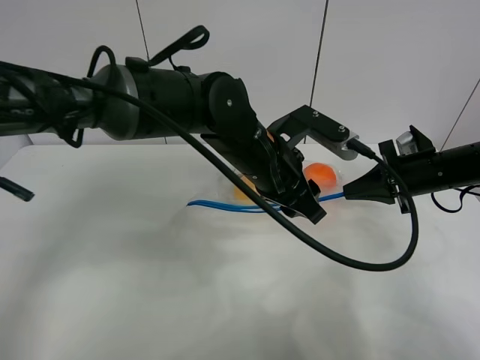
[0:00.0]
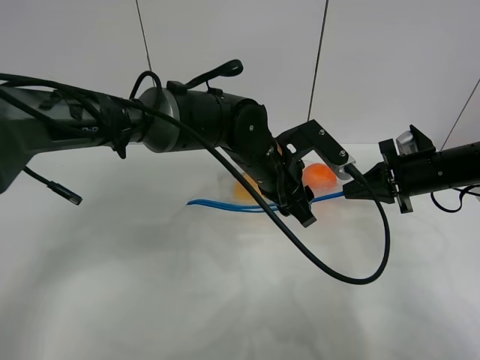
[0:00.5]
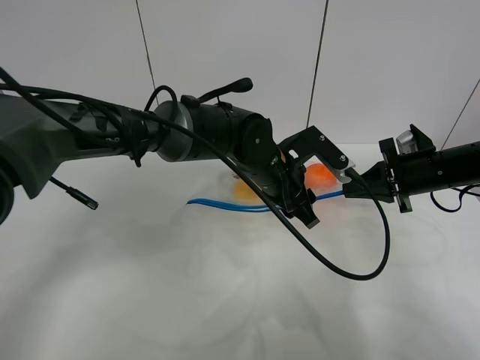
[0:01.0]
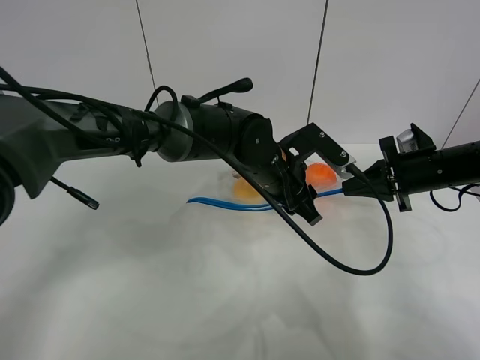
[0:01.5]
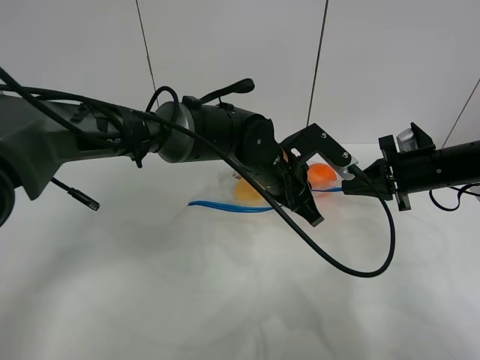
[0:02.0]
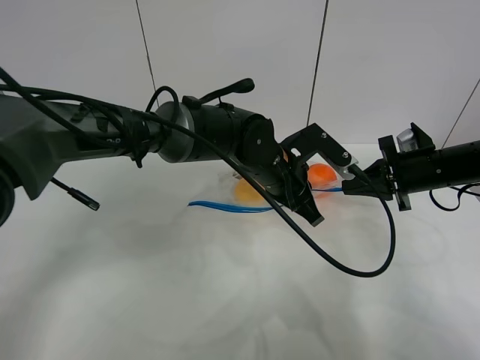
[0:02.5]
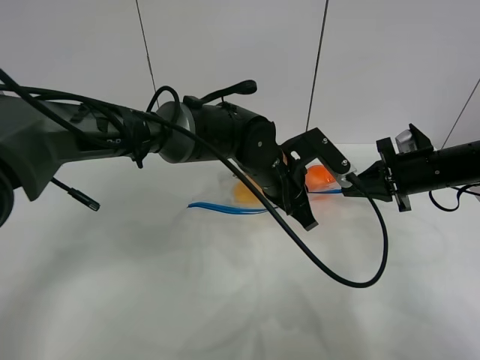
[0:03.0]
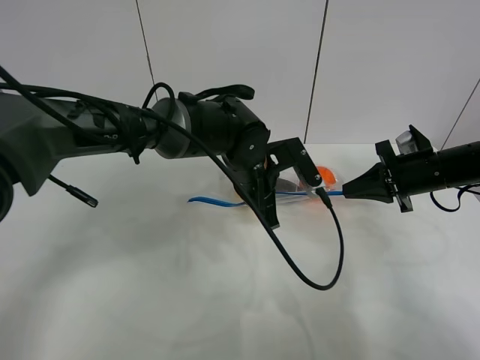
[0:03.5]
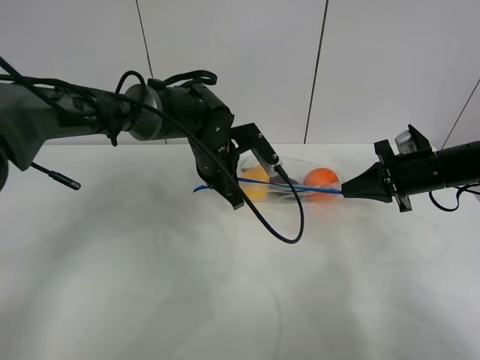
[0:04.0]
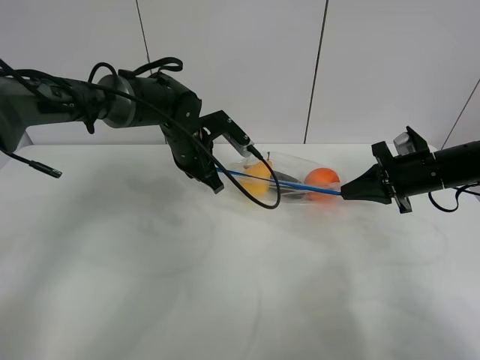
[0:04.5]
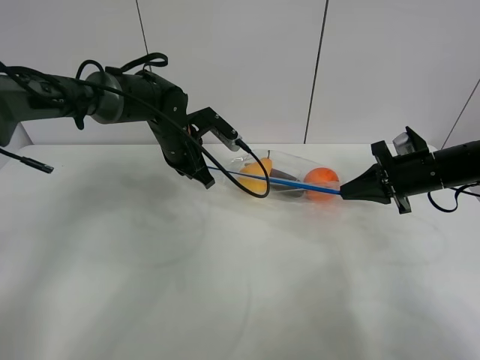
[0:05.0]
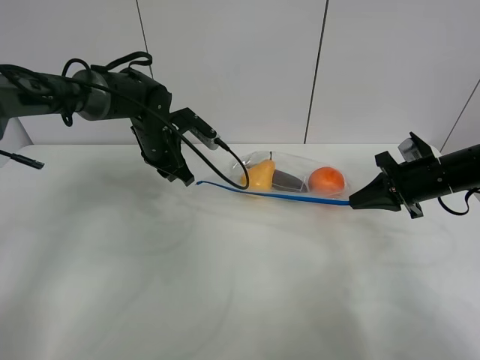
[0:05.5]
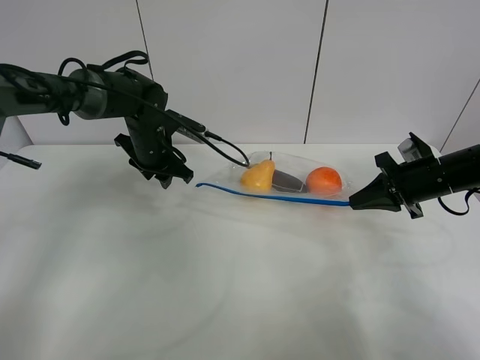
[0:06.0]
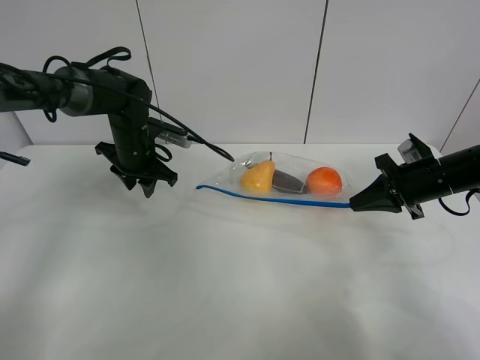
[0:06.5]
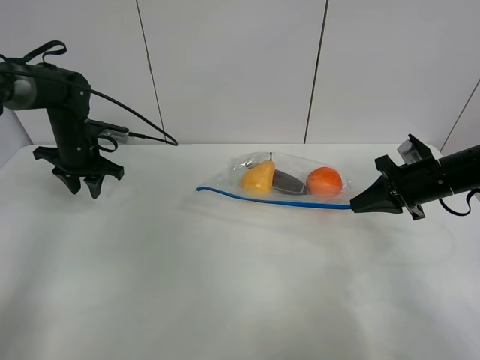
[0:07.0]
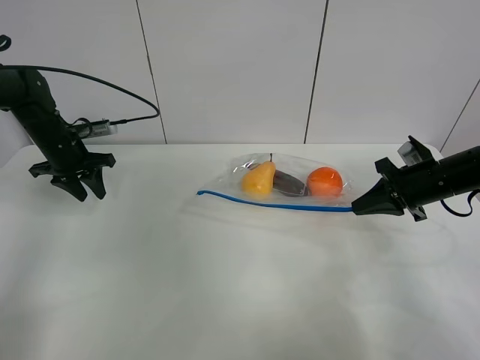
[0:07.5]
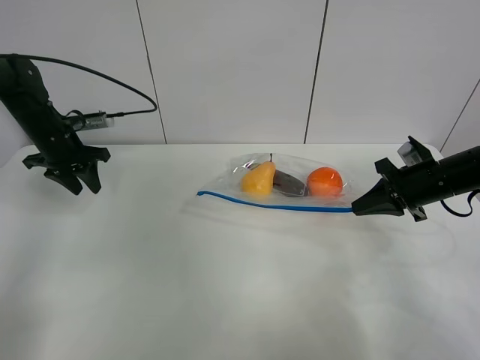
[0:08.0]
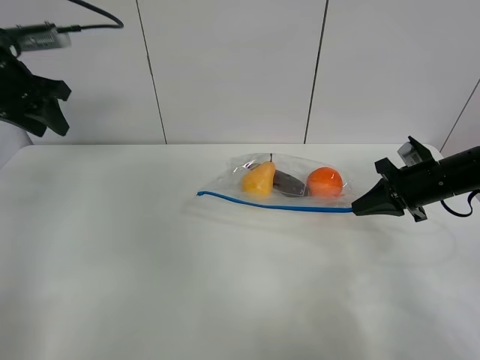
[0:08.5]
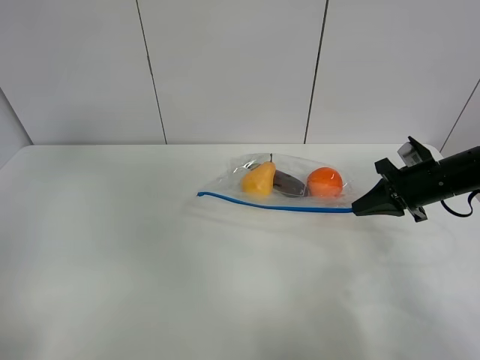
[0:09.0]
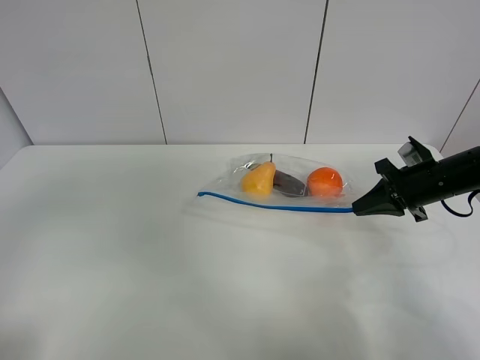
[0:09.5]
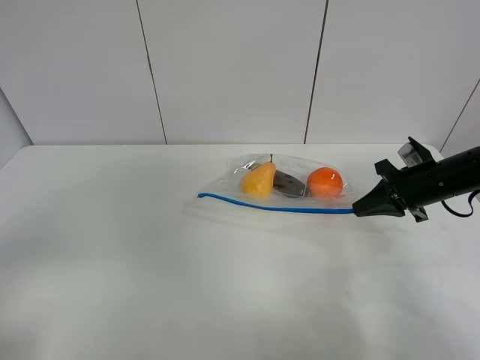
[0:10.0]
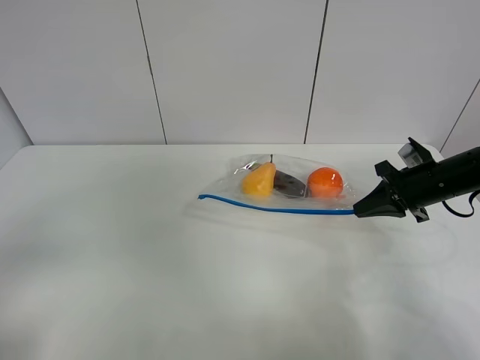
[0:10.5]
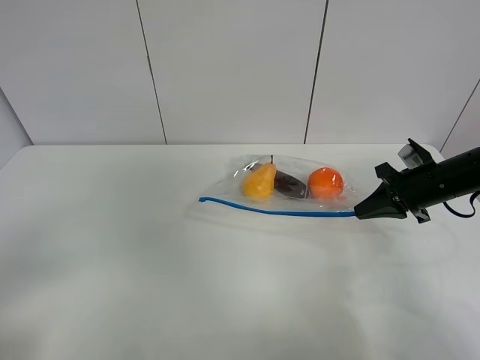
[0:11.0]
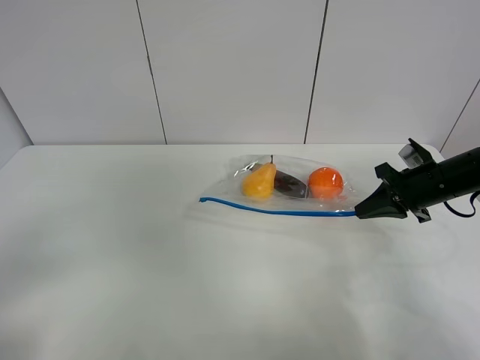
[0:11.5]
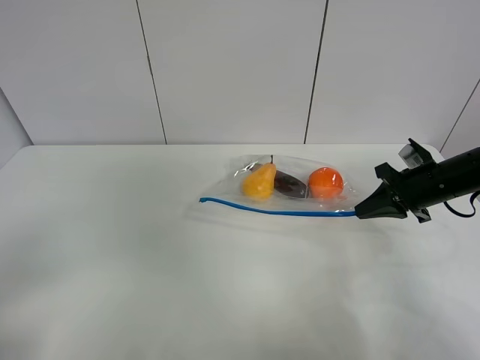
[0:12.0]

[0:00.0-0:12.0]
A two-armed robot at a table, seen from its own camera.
Step, 0:00.0 to 0:05.5: Pull the fruit bag with left gripper.
0:00.0 to 0:02.0: The left gripper moves roughly 5 cm, and closes.
0:02.0 to 0:04.0: The left gripper goes roughly 10 cm to the left.
0:04.0 to 0:06.0: The left gripper shifts roughly 10 cm to the left, and opens.
0:06.0 to 0:08.0: The left gripper goes some 20 cm to the left.
0:08.0 to 0:10.0: The left gripper is displaced backward by some 40 cm.
0:10.0 to 0:12.0: There are only small adjustments of the grippers.

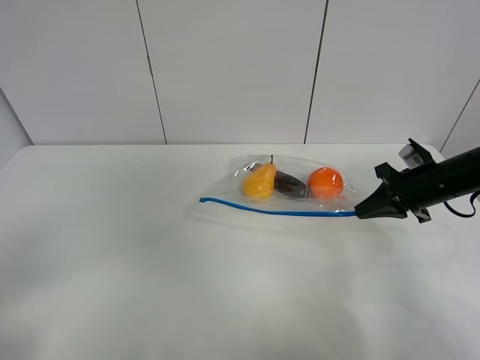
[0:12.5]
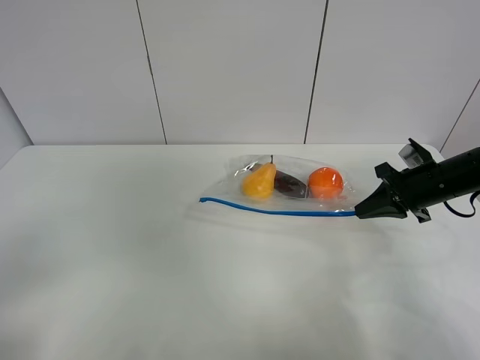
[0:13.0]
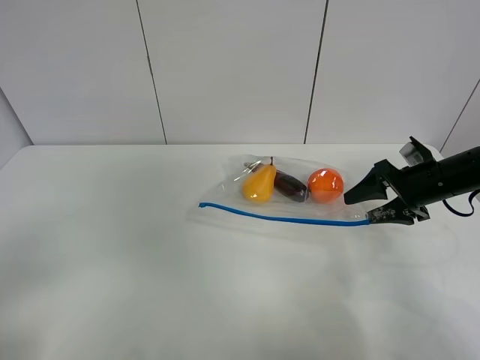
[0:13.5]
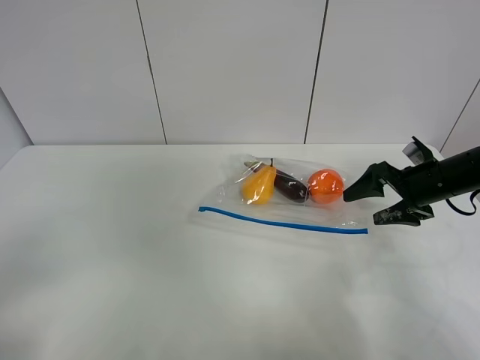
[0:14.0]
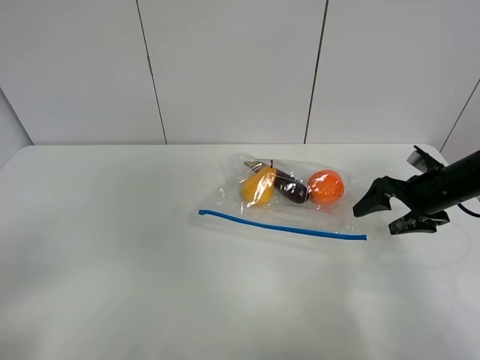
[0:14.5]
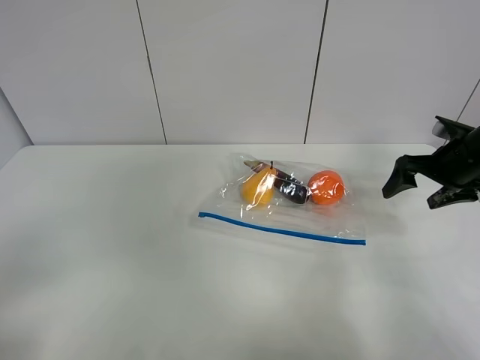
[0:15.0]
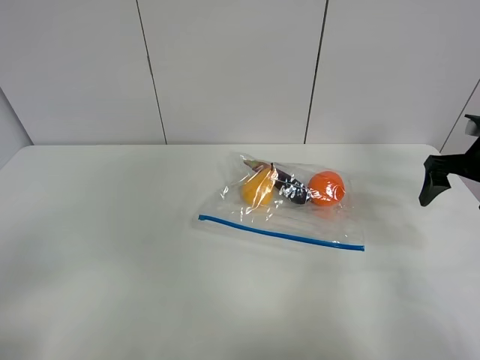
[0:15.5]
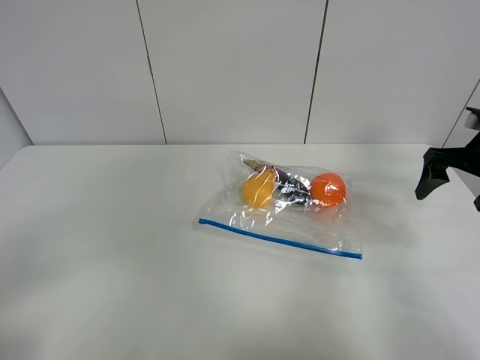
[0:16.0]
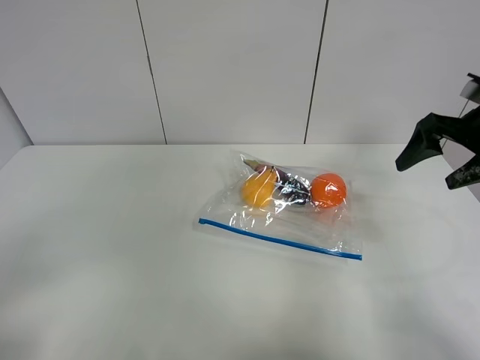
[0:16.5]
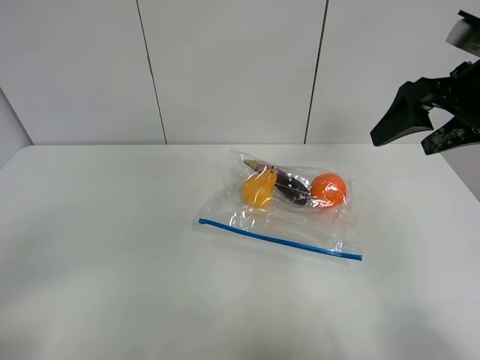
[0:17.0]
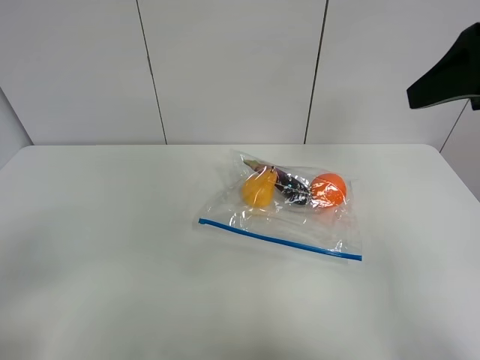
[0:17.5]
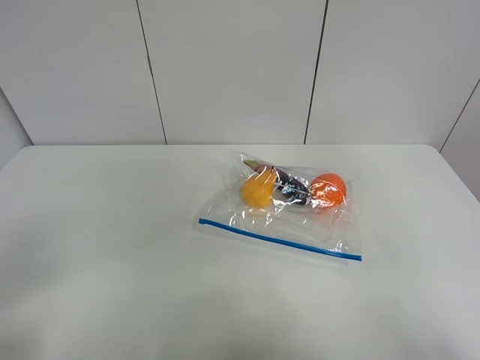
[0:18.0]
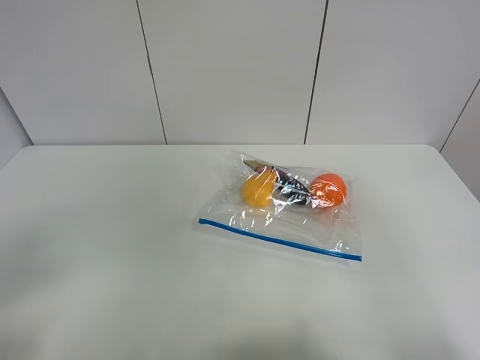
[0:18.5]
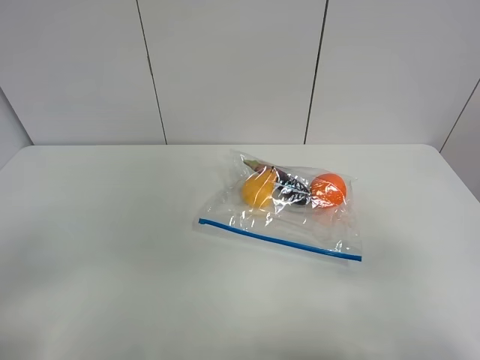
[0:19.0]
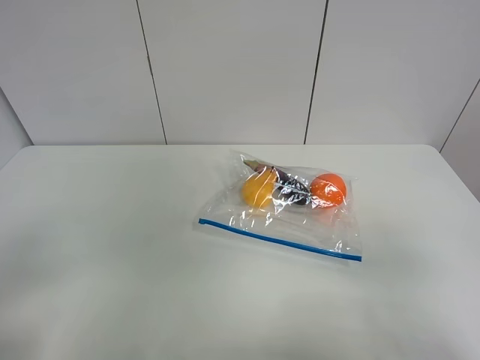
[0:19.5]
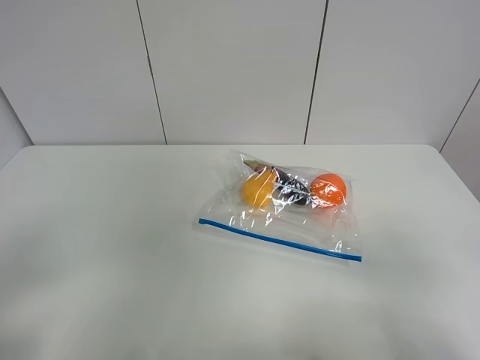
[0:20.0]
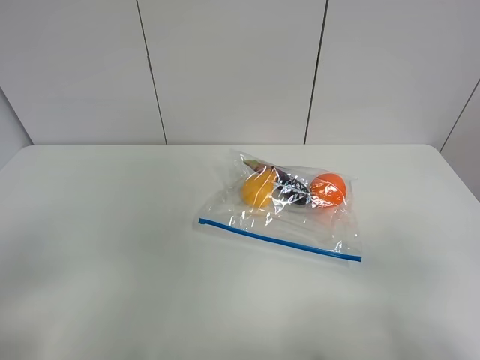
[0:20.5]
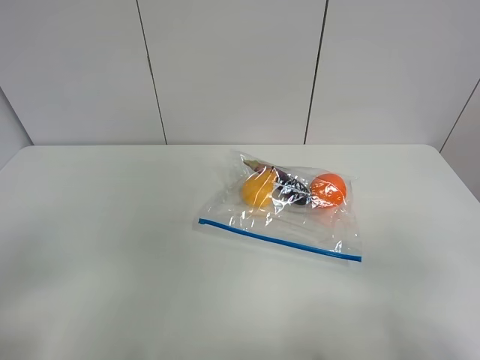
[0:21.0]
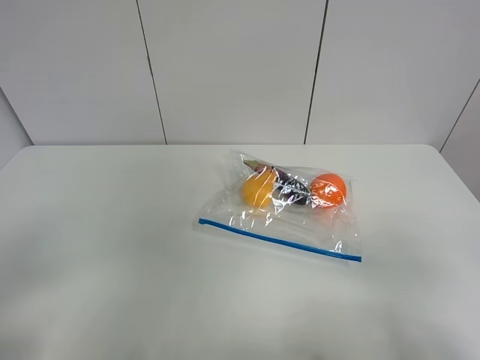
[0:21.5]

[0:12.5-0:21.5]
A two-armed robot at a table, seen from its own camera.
0:12.5 to 0:14.5: The right gripper opens up.
0:14.5 to 0:17.0: The right gripper travels upward by approximately 20 cm.
0:17.0 to 0:19.5: The right gripper shifts approximately 30 cm backward.

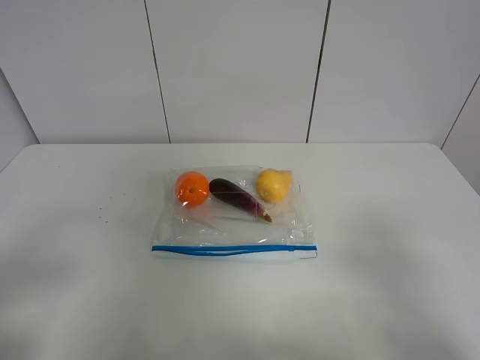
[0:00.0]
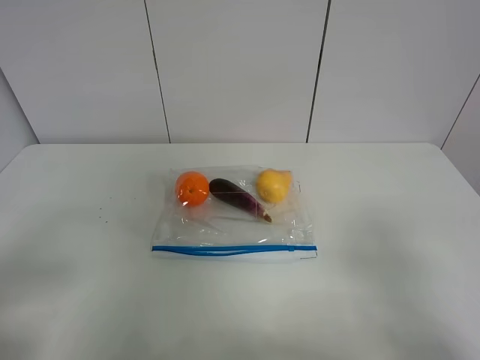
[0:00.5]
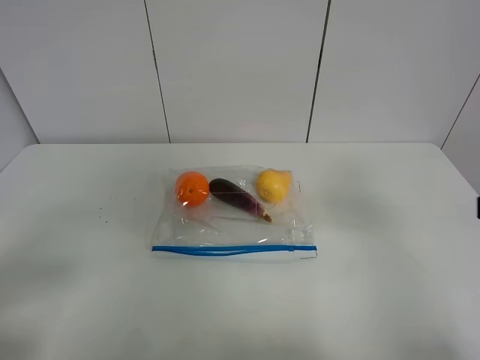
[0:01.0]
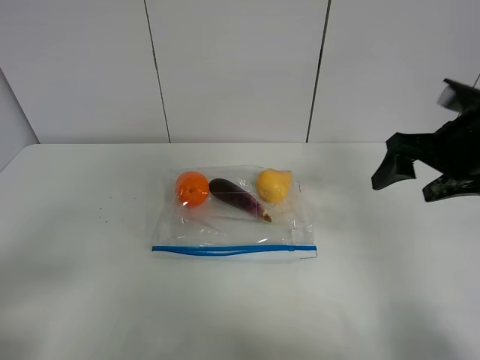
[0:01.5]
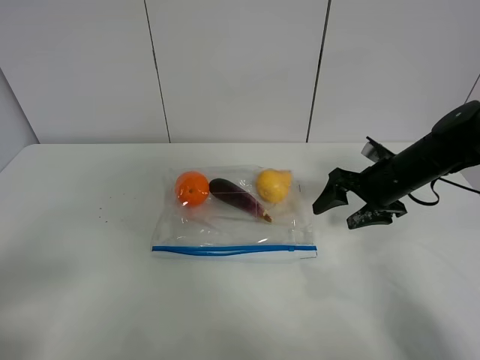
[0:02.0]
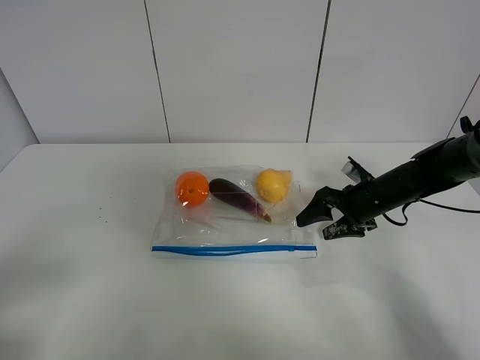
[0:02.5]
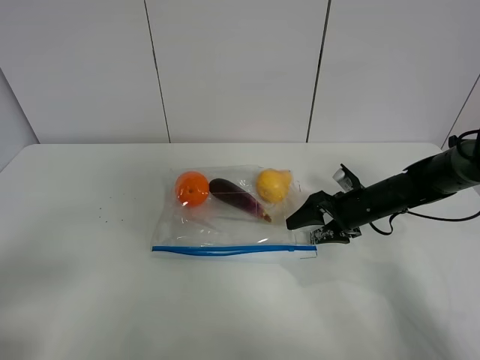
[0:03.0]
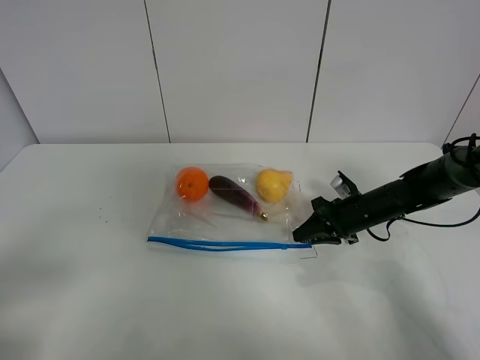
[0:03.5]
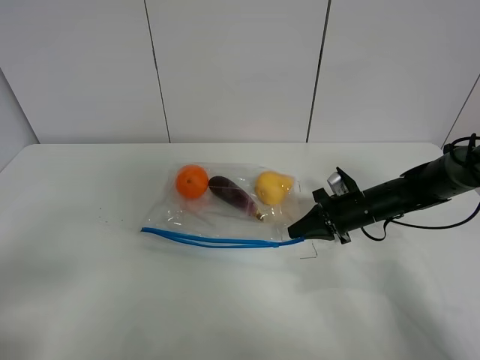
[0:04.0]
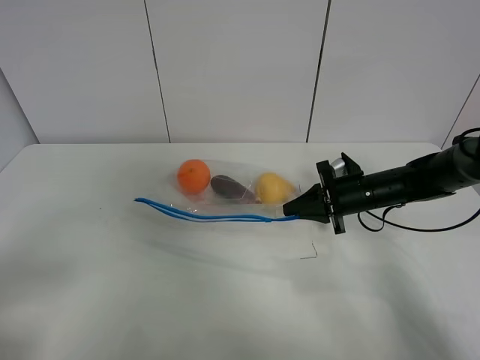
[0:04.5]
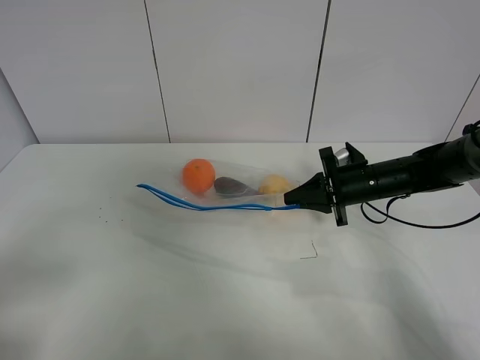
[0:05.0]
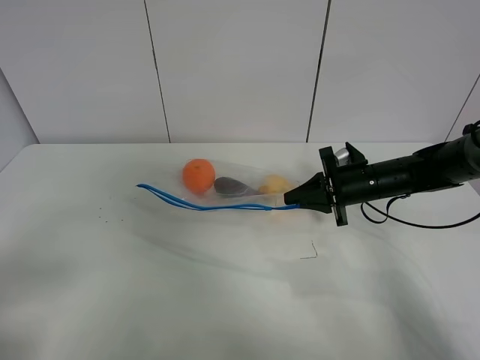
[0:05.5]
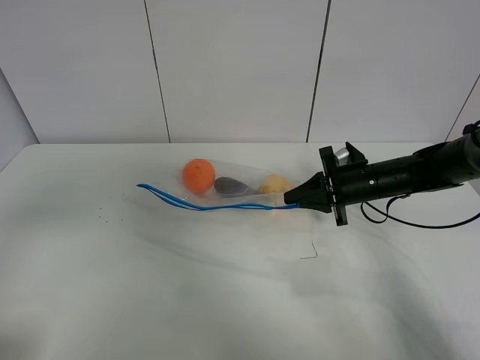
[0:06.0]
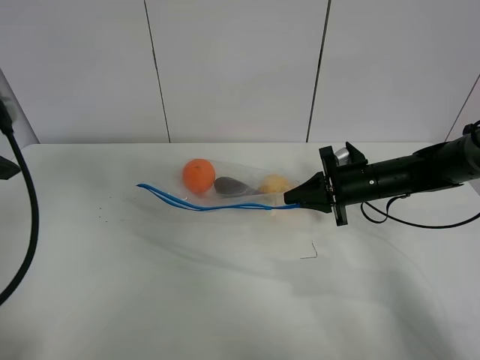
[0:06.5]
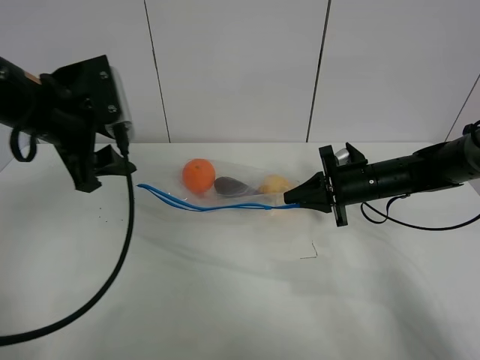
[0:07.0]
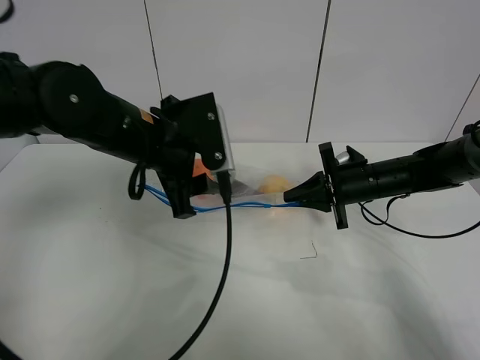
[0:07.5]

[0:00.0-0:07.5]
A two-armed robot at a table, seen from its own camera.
Step, 0:00.0 to 0:03.5: Grasp the fruit bag with right gripper.
Step, 0:04.0 to 0:04.5: Lift the fruit bag with your right gripper.
0:00.0 to 0:02.0: The right gripper is displaced forward by approximately 35 cm.
0:02.0 to 0:04.0: The right gripper shifts some 10 cm downward, and closes its fingers.
0:04.0 to 0:05.5: The right gripper heads upward, covering roughly 5 cm.
0:05.5 to 0:07.5: The left gripper heads forward and to the right, covering roughly 35 cm.
